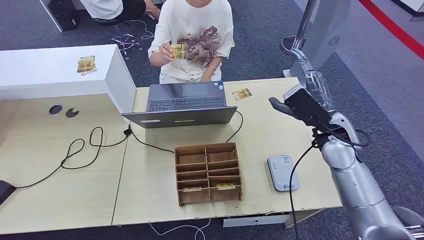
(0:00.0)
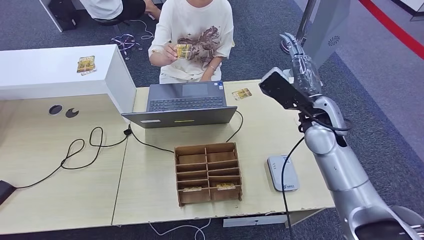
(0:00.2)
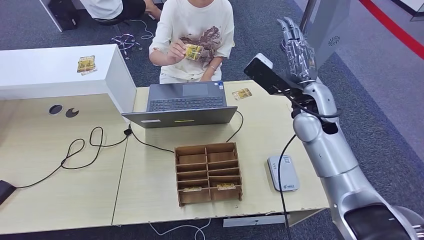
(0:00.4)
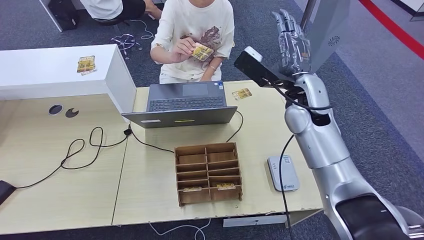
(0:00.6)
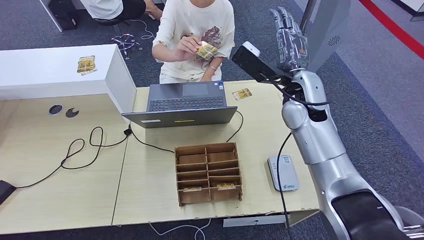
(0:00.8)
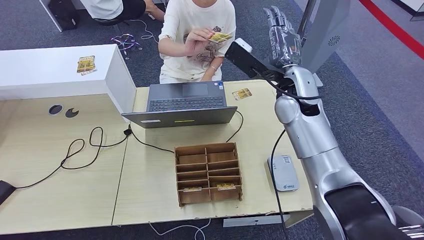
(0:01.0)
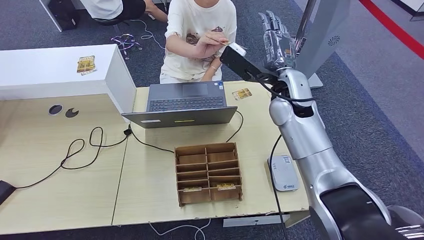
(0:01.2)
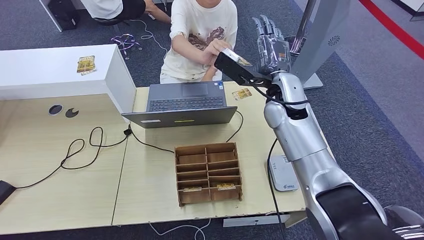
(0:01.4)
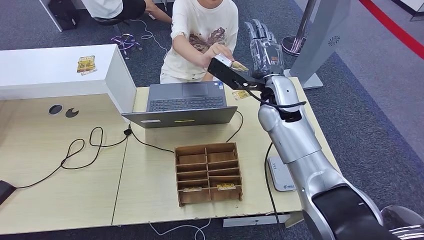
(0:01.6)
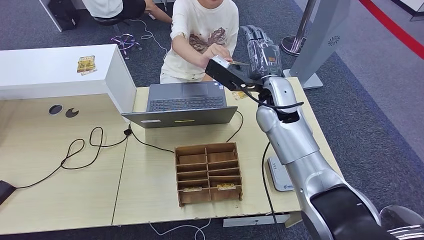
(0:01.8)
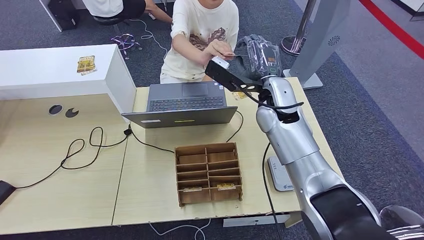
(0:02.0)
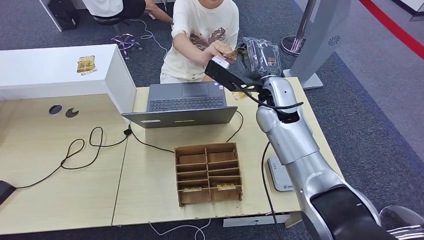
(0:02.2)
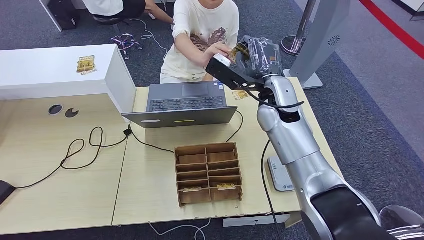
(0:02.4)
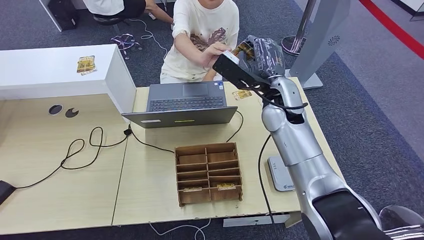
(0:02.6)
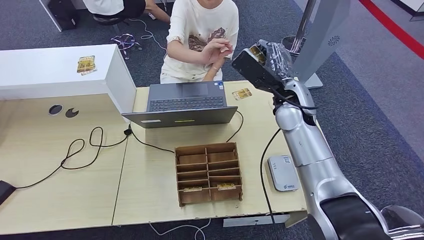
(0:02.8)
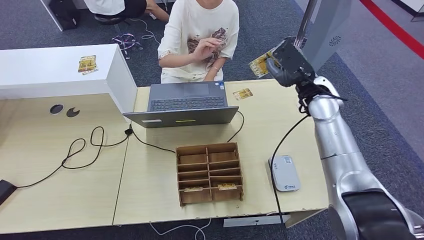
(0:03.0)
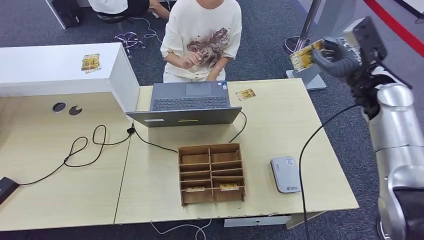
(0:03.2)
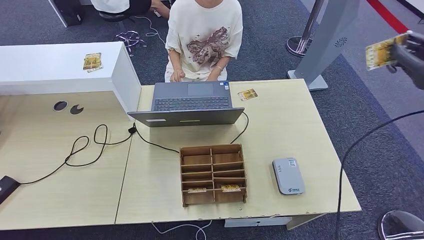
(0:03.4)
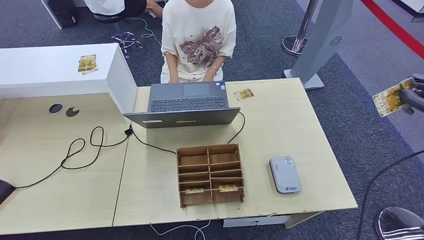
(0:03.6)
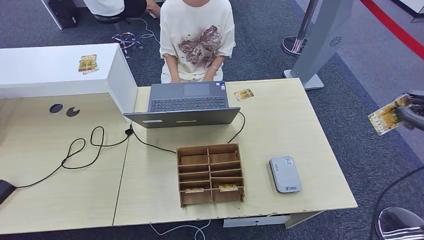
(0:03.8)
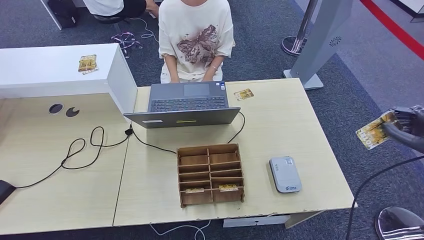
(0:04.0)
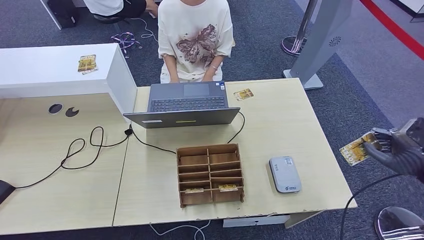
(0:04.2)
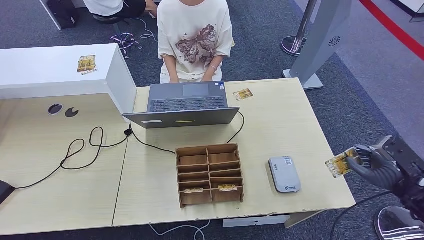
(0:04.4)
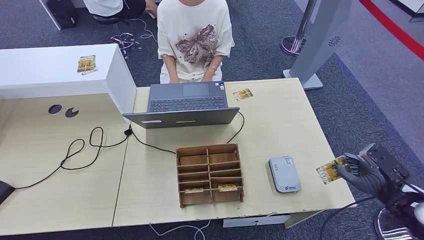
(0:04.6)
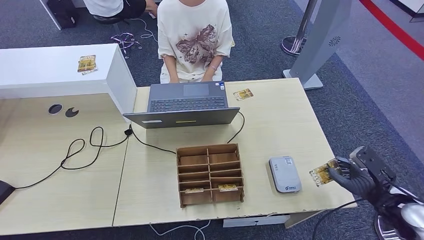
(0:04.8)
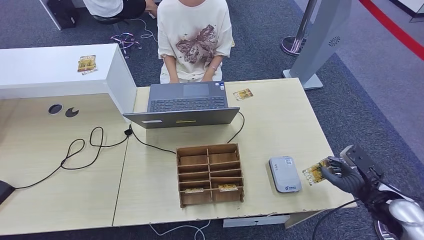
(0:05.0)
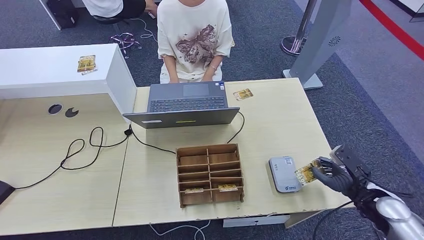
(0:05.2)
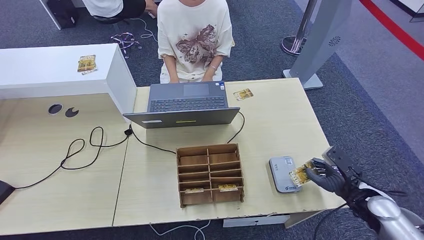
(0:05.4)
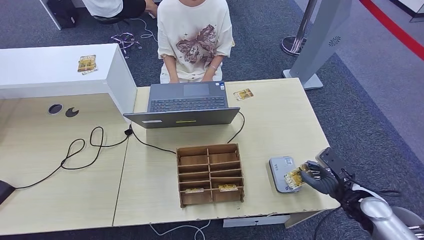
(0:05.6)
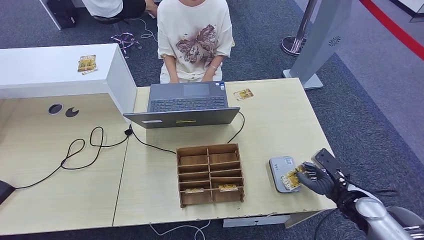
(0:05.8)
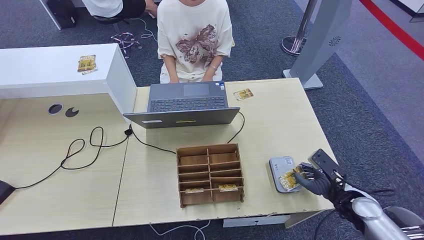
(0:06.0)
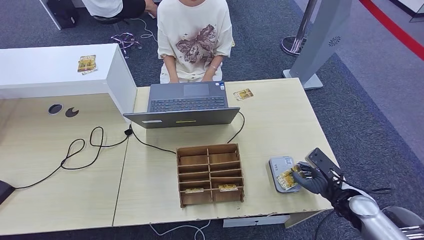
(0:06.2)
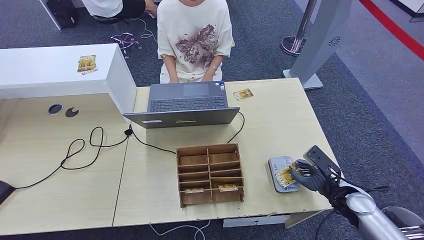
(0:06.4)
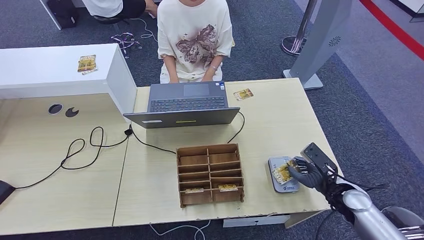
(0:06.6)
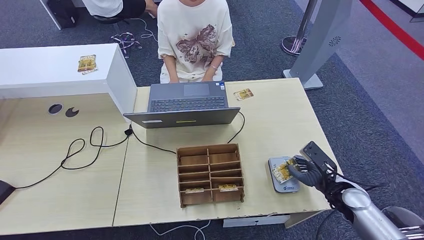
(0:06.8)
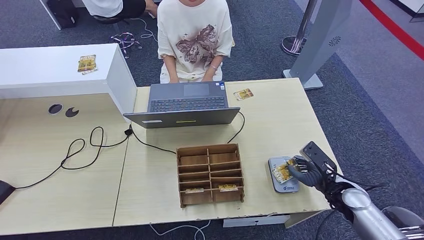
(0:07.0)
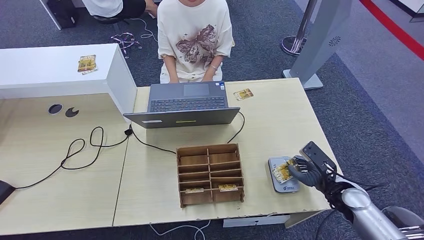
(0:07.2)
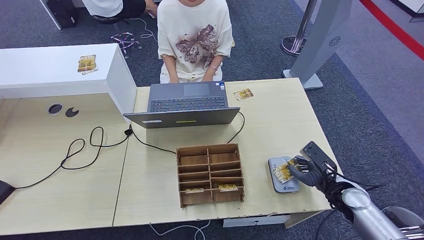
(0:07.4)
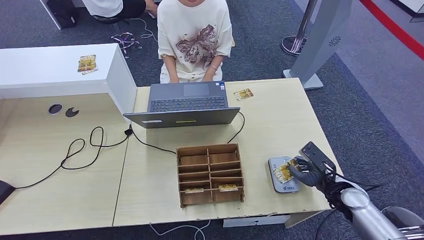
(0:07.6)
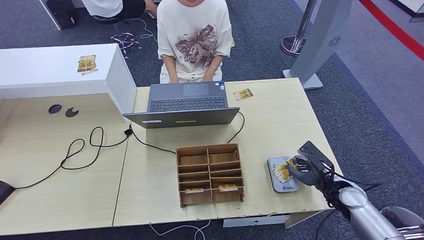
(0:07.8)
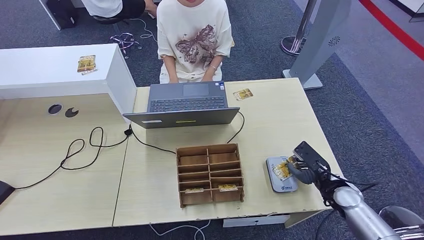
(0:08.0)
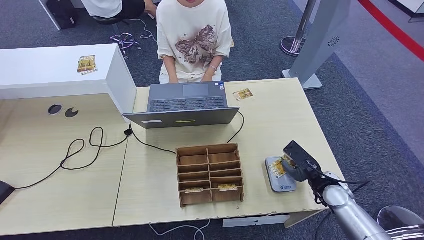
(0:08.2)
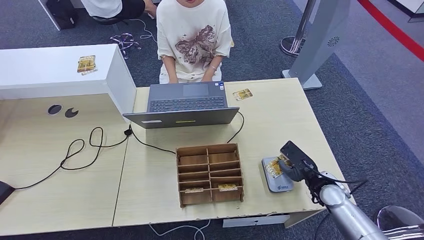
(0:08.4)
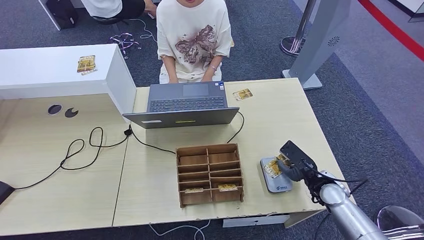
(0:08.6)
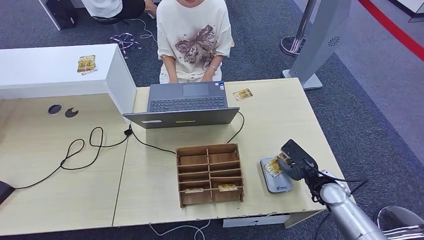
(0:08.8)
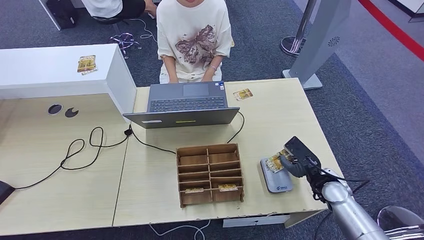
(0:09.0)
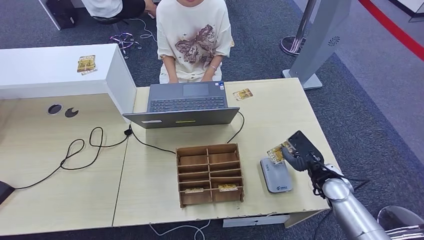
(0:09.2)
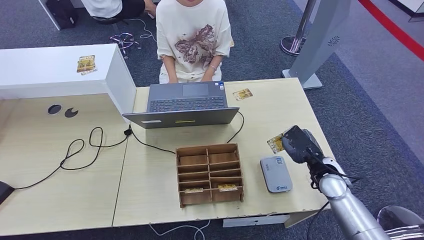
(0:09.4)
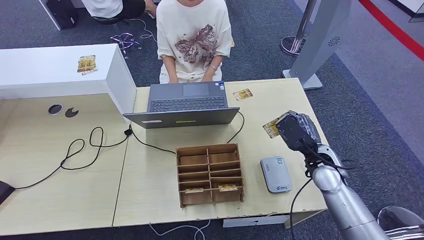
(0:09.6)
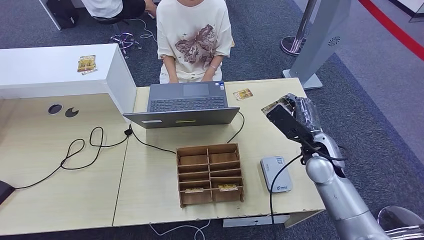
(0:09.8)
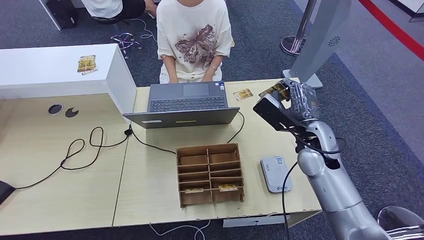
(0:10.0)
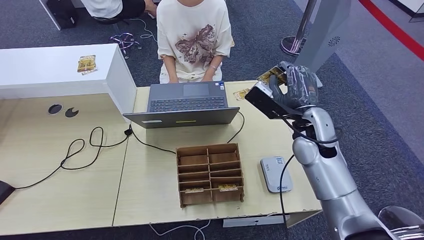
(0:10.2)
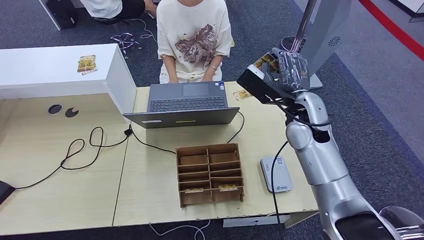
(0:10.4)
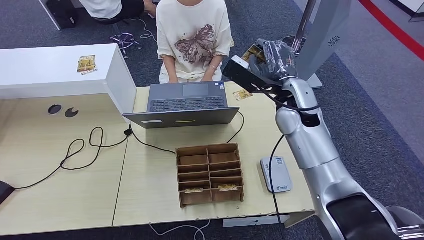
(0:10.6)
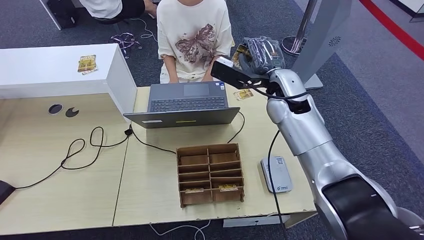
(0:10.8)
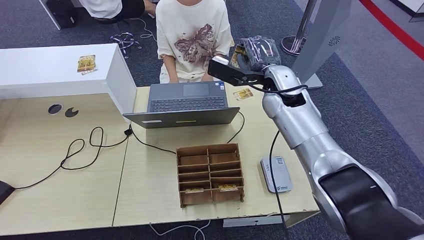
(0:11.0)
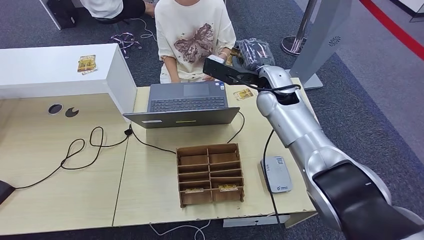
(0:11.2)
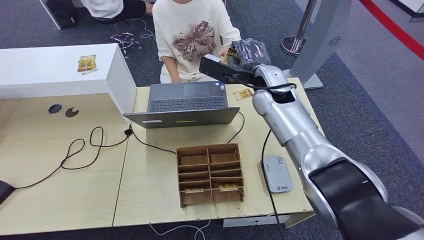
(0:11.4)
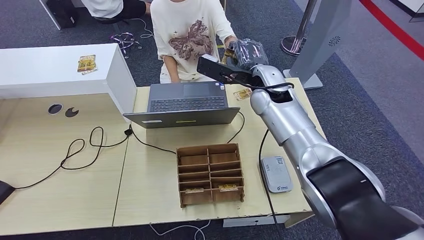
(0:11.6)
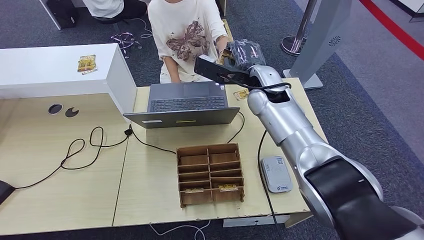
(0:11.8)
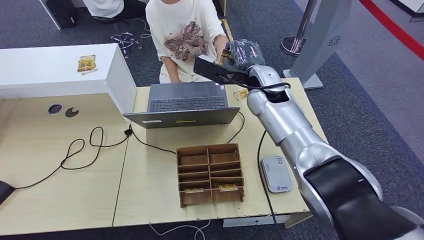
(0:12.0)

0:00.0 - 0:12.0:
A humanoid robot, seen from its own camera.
Step, 0:00.0 - 0:03.8: Take the ID card from the person's hand.
Step, 0:04.2 - 0:10.0: Place the ID card on the card reader.
0:01.6 - 0:03.0: The right hand travels to the right by some 10 cm.
0:03.0 - 0:04.4: The right hand travels backward, to the right and downward by approximately 35 cm.
0:04.4 - 0:06.0: The right hand moves downward and to the left, roughly 15 cm.
0:06.0 - 0:07.6: The hands stay close to where they were, moving slightly.
0:07.6 - 0:09.0: The right hand shifts by about 5 cm.
0:09.0 - 0:10.4: The right hand is displaced upward, to the left and forward by some 25 cm.
0:10.4 - 0:12.0: The right hand moves to the left and forward, about 10 cm.

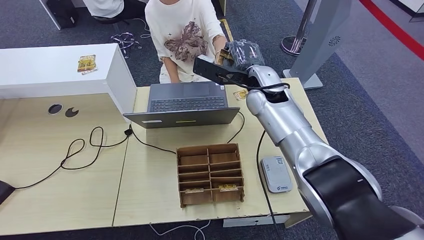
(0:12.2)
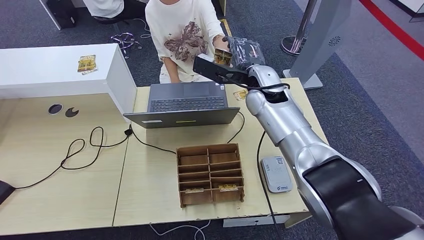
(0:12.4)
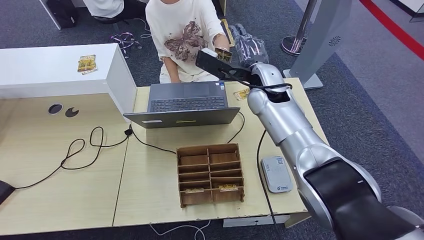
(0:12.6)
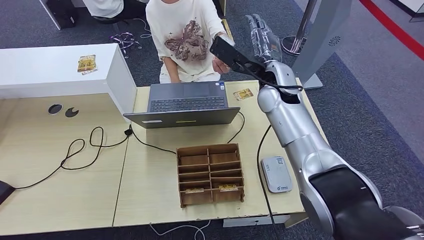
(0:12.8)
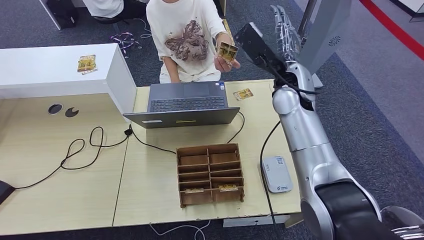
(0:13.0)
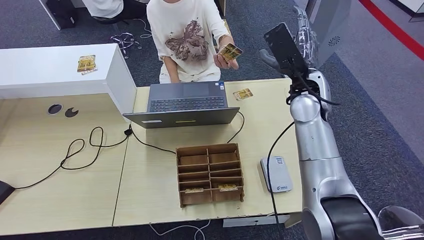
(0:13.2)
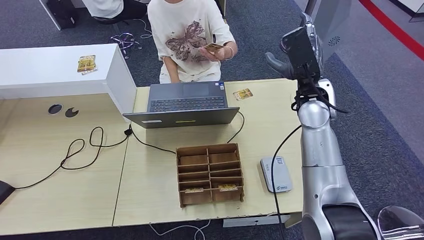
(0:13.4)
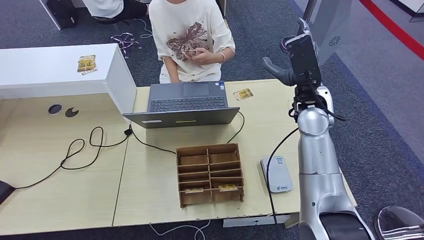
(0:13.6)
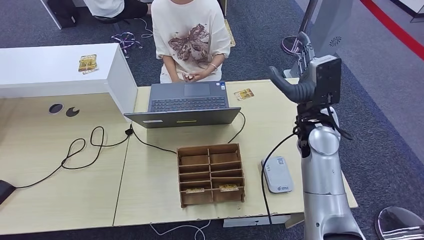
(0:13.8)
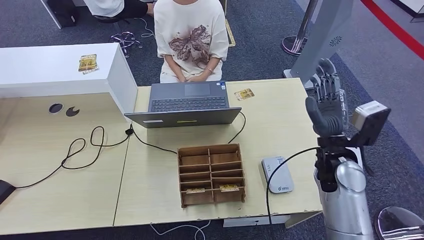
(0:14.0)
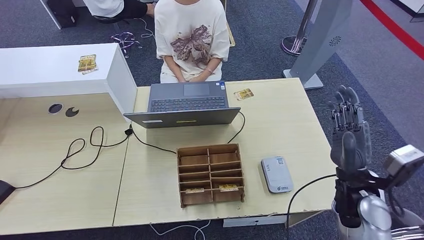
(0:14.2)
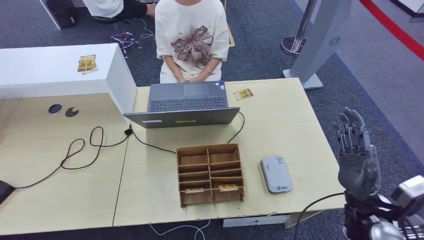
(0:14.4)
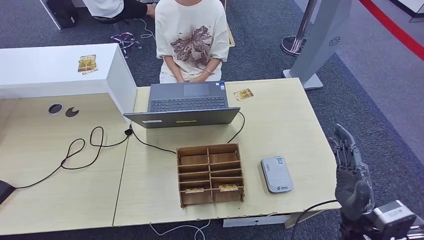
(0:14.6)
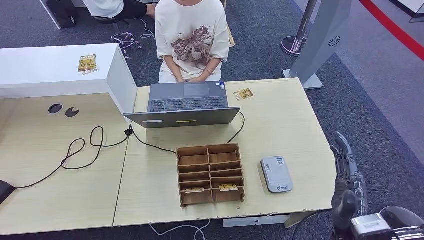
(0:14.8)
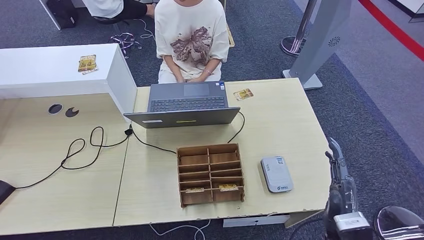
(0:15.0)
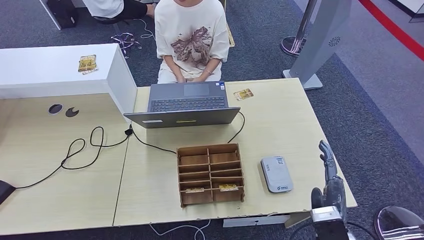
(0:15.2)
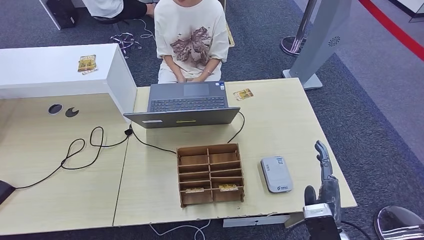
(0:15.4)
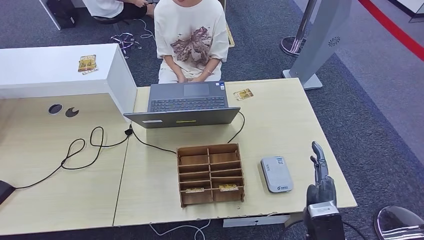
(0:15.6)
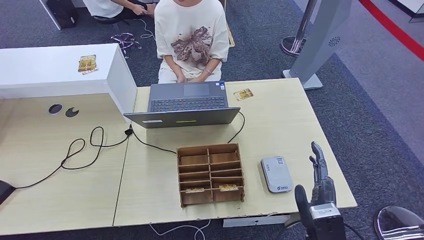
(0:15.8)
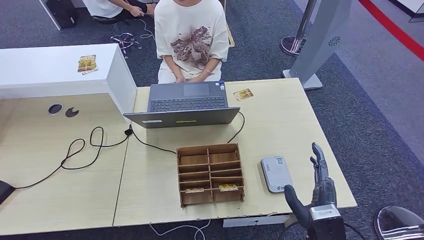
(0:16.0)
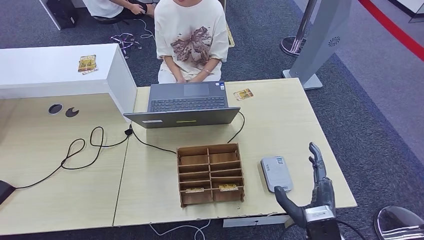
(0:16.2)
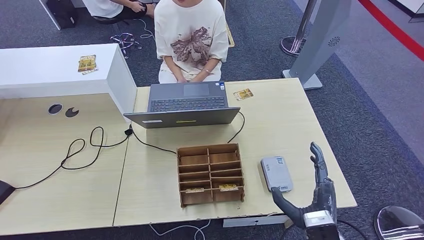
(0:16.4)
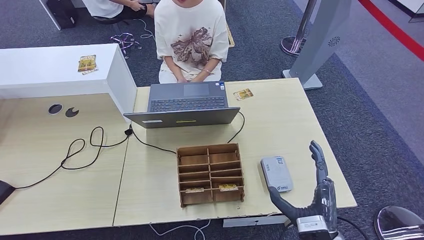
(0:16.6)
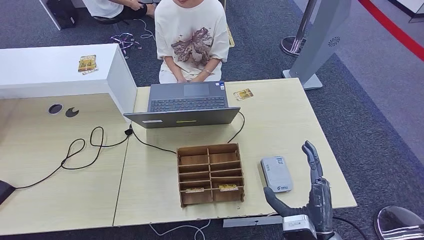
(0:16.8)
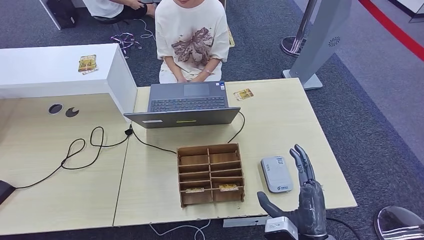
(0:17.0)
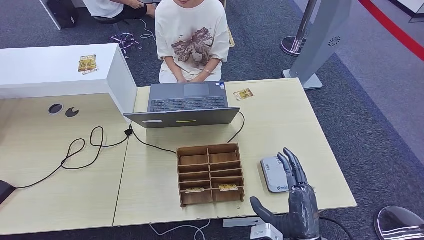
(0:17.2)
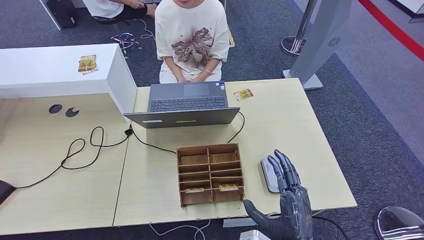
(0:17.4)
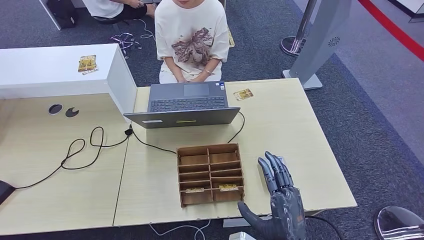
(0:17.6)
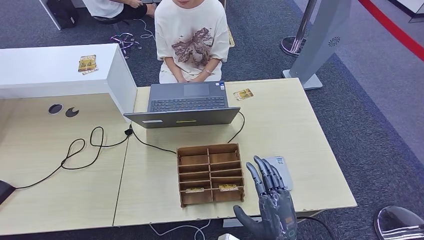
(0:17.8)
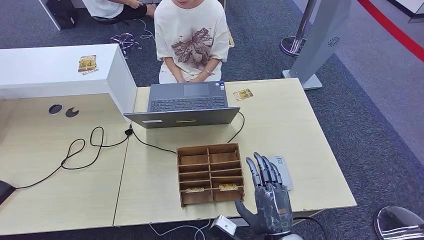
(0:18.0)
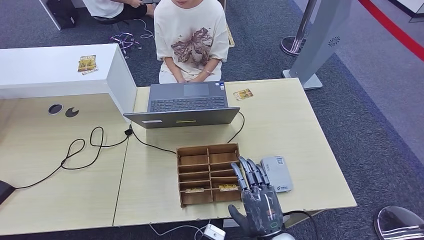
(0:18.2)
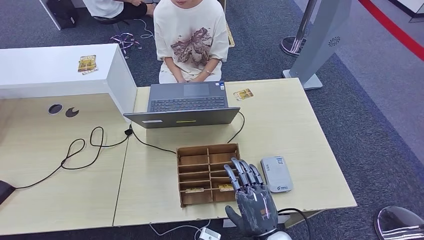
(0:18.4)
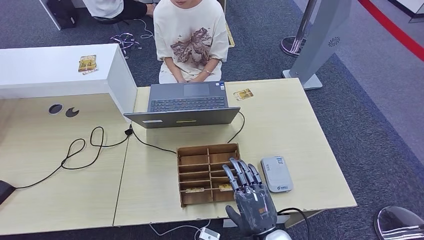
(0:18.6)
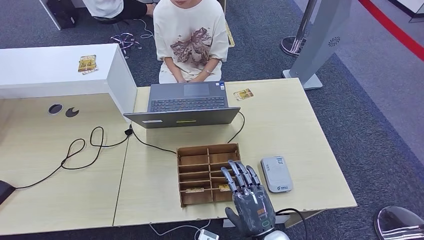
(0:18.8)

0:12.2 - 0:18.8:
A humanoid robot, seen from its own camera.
0:12.2 - 0:13.8: The right hand is displaced to the right and backward by roughly 15 cm.
0:13.8 - 0:15.4: The right hand heads backward and downward, covering some 25 cm.
0:17.2 - 0:18.8: The right hand ends up about 5 cm from where it was.
